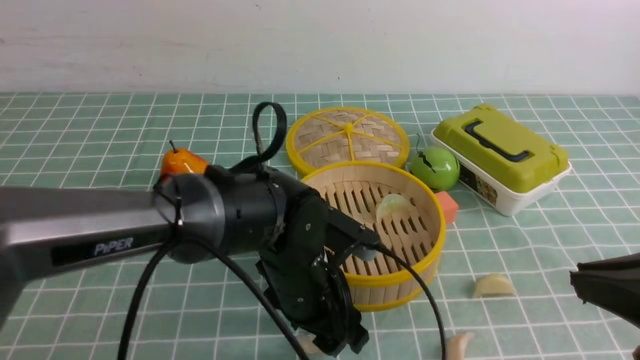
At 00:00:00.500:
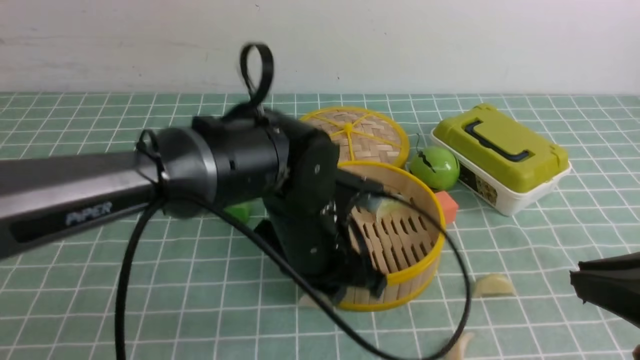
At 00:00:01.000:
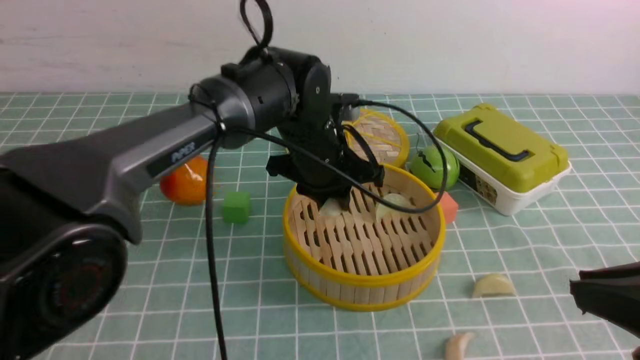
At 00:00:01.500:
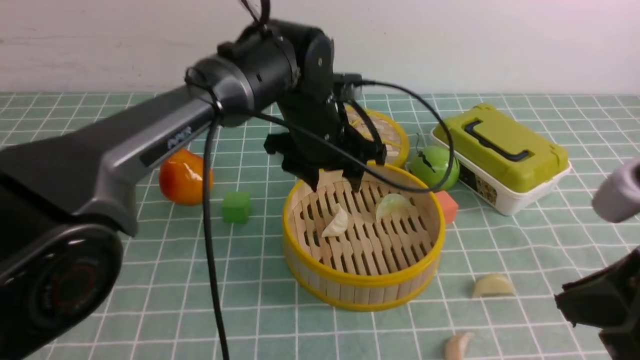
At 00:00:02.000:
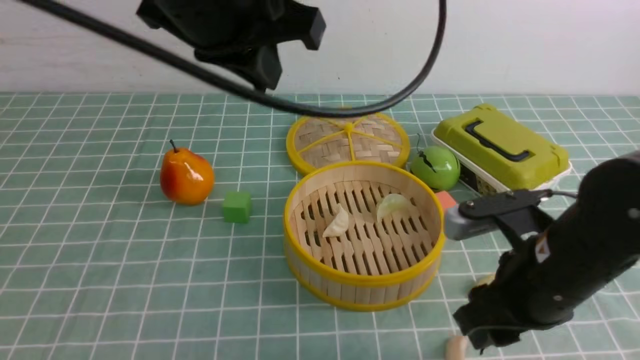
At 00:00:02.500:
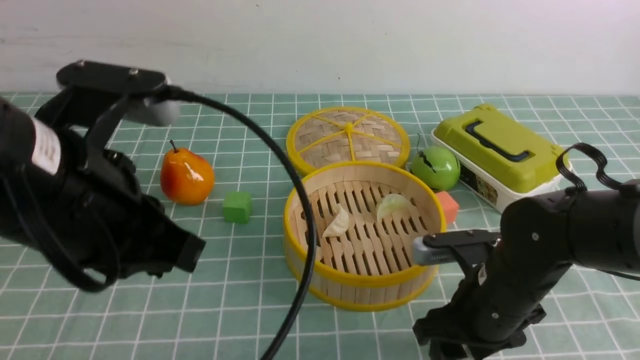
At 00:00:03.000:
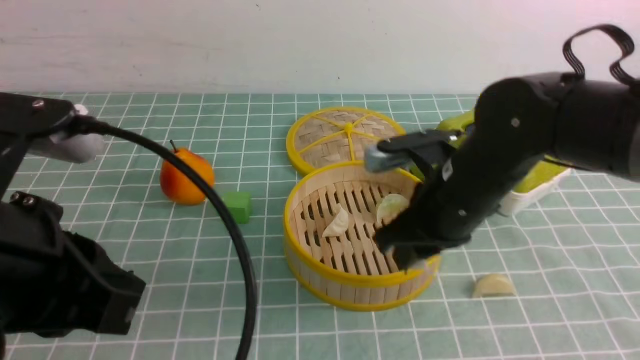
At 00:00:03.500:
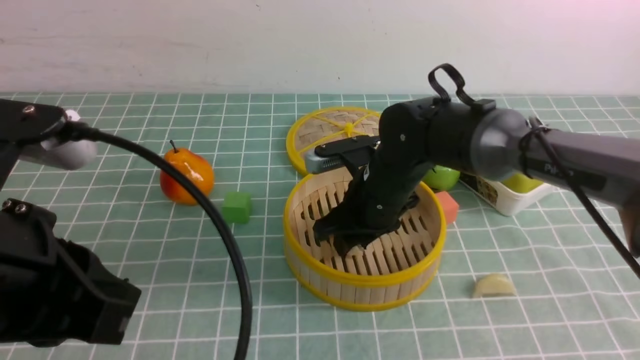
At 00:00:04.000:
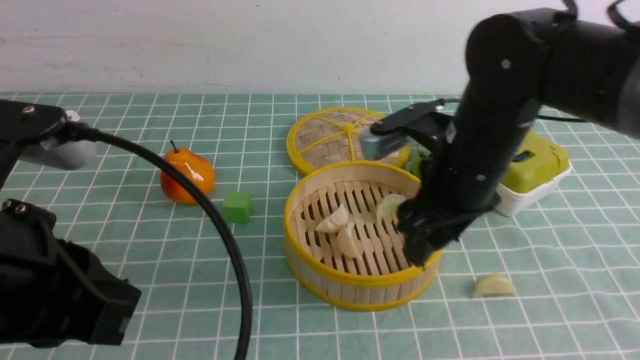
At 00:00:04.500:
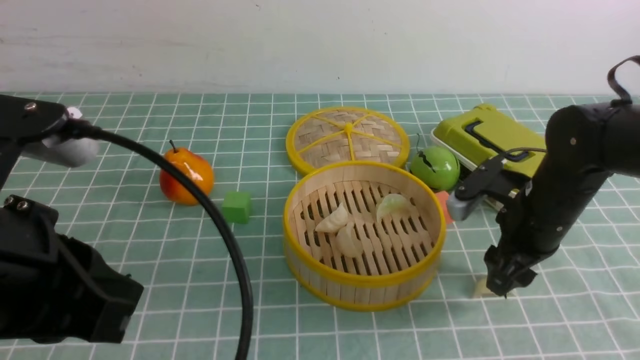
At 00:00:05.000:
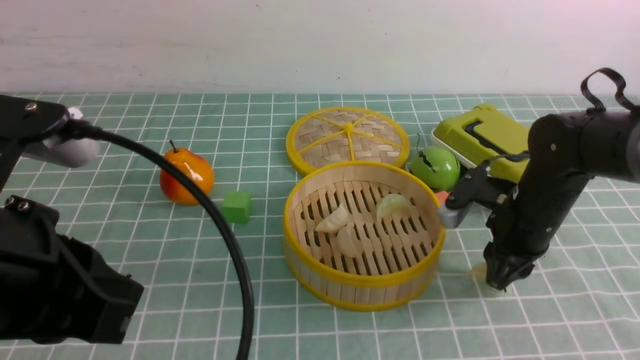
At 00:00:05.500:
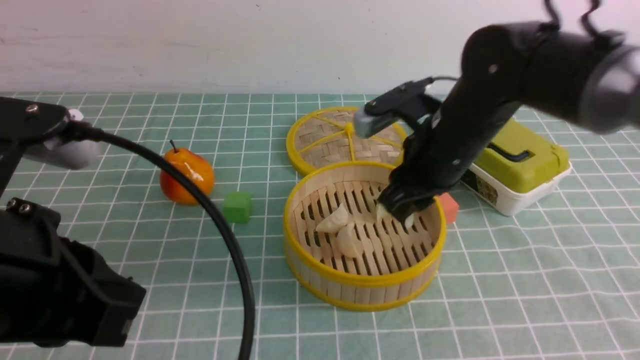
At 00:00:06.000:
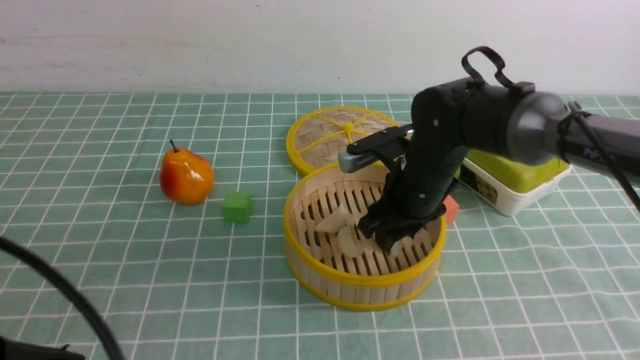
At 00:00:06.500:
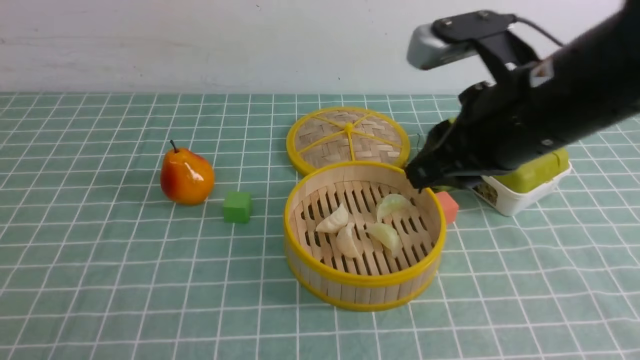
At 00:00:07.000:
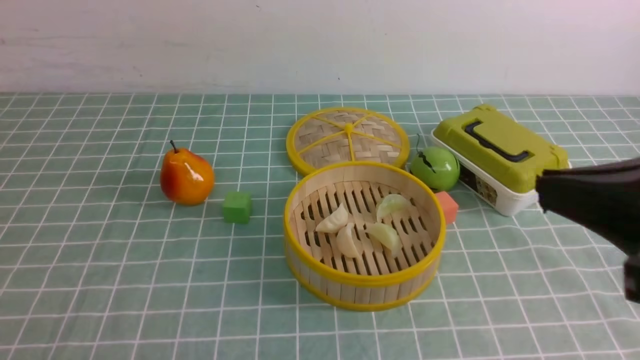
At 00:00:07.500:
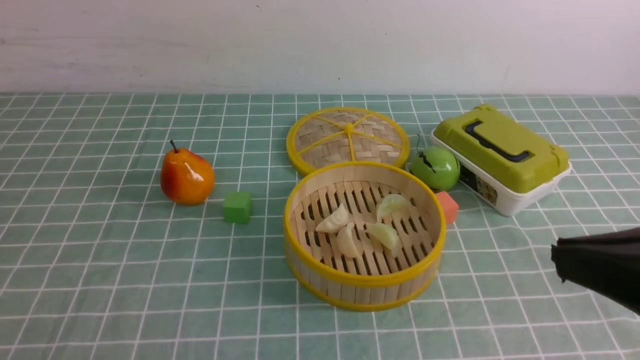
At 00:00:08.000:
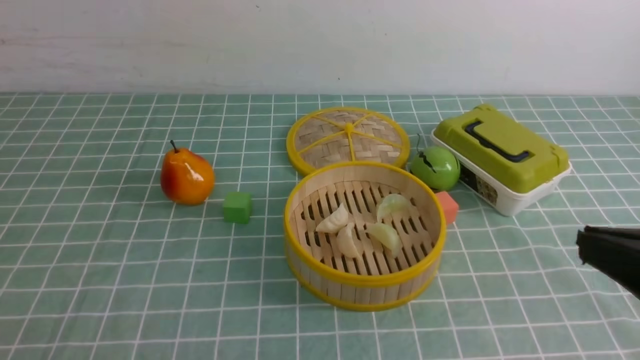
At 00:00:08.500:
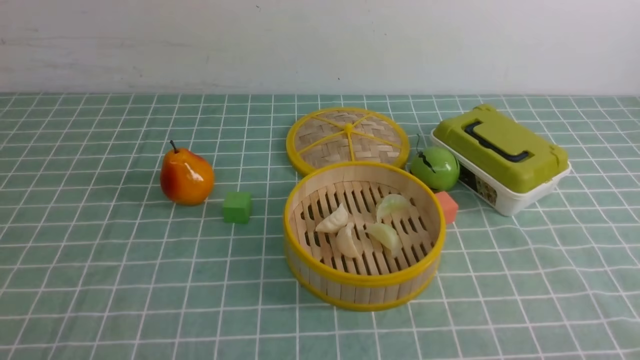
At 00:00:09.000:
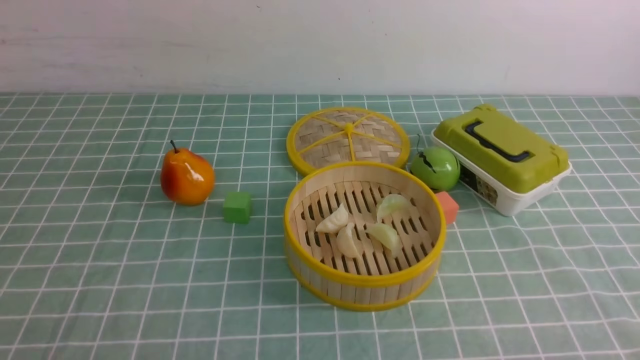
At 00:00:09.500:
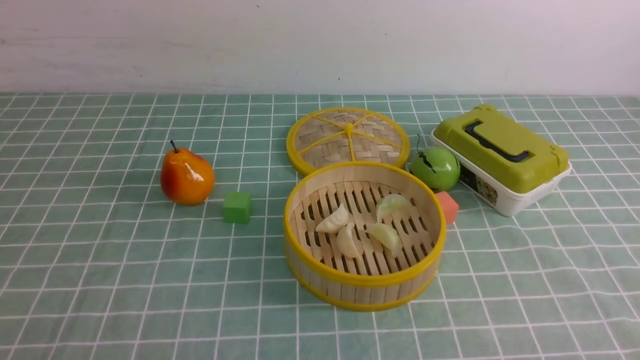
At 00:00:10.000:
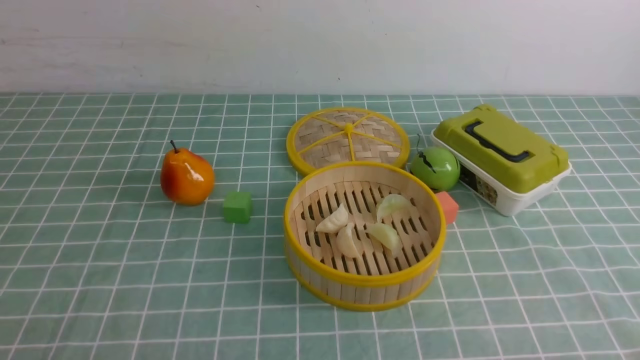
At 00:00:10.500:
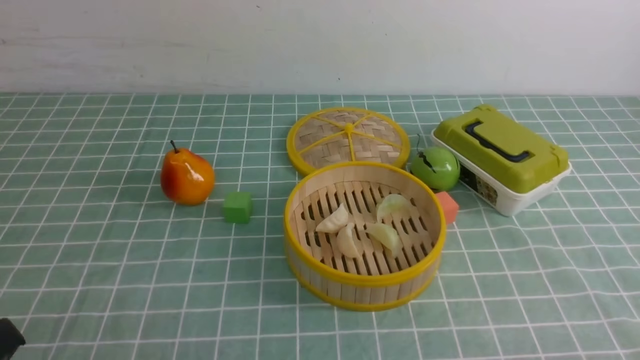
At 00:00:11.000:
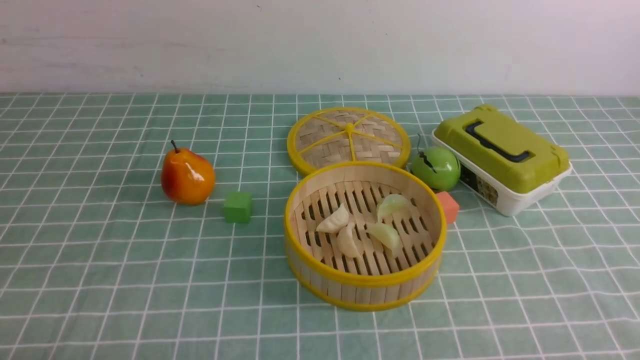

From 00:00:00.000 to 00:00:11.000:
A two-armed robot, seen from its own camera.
Task of the whole recording: put the dumplings into the steamer on the table with the blue tablecloth.
Step, from 00:00:00.500 to 00:00:01.000: use the left arm to put the dumpling into the steamer.
Step, from 00:00:02.000 to 00:00:02.500: use the right arm to grab a dumpling.
Step, from 00:00:03.000 to 00:00:03.500: use the right arm to put the dumpling into the steamer.
Step, from 00:00:04.000 to 00:00:04.500: use the right arm to grab a dumpling.
Step, from 00:00:05.000 to 00:00:06.000: use the right arm to put the dumpling into the steamer.
From 00:00:00.000 to 00:00:02.000: The right gripper travels forward, downward and to the left by approximately 15 cm, and opens its fingers, while the left gripper moves upward, some 25 cm, and closes its fingers.
From 00:00:02.000 to 00:00:03.500: The right gripper is displaced forward and to the left by some 20 cm. The left gripper travels backward, to the left and downward by roughly 20 cm.
From 00:00:03.500 to 00:00:05.500: The right gripper is displaced to the right by roughly 5 cm.
From 00:00:05.500 to 00:00:07.500: The left gripper moves backward, to the left and downward, about 15 cm. Meanwhile the right gripper is displaced backward and upward by some 30 cm, and closes.
From 00:00:07.500 to 00:00:09.000: The right gripper goes roughly 20 cm downward and to the right.

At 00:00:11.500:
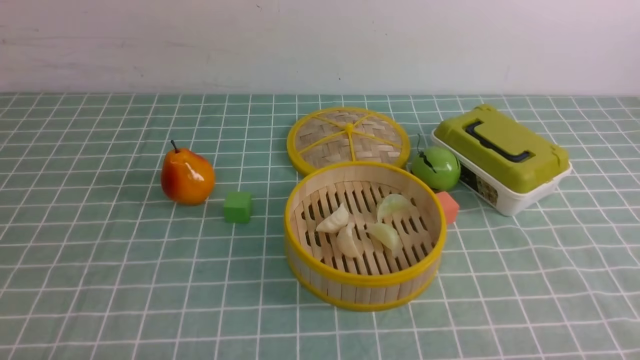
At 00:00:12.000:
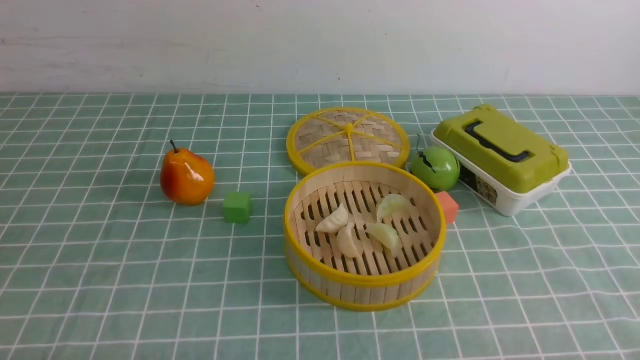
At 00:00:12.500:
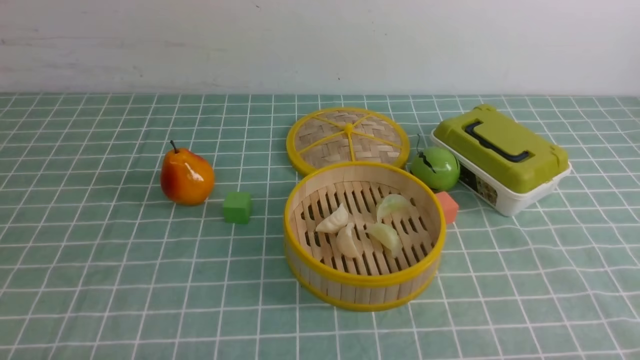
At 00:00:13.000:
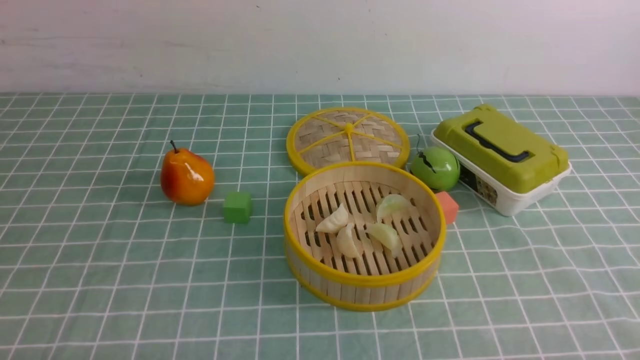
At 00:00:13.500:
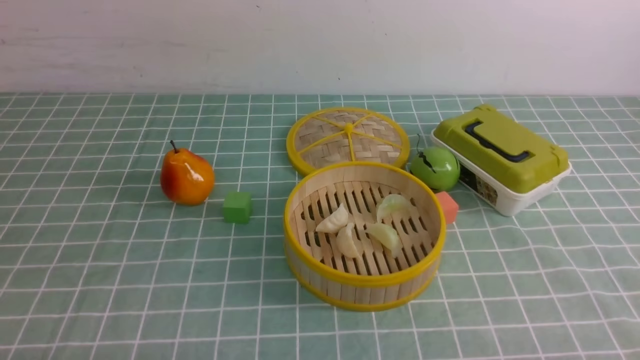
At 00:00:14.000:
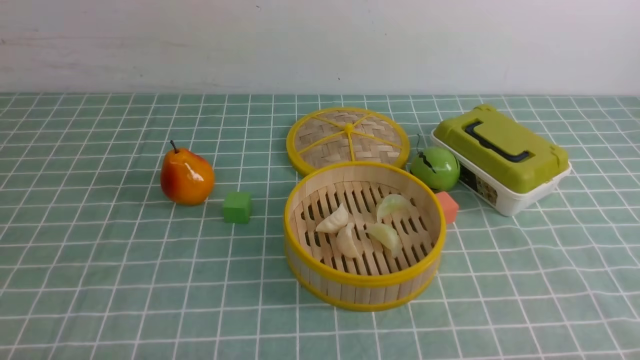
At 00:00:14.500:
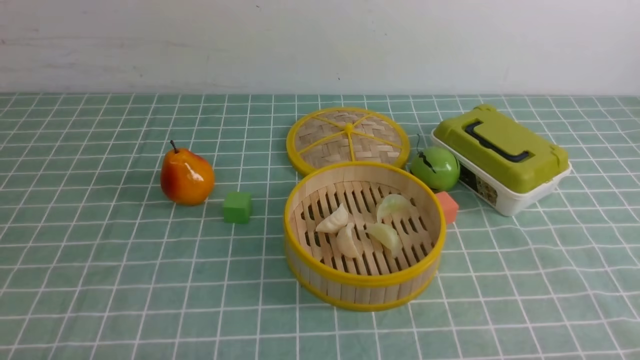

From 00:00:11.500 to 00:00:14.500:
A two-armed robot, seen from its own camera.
Task of the whole recording: put the dumplings into the steamer on the table with the blue tablecloth.
From 00:00:11.500 to 00:00:14.500: Neither gripper changes place.
